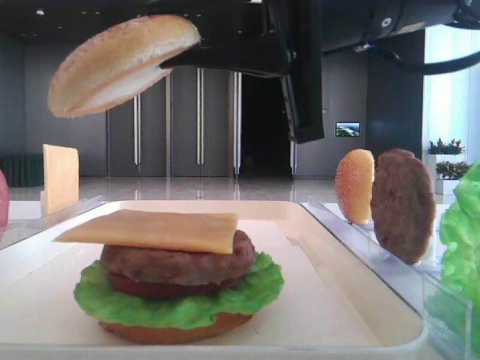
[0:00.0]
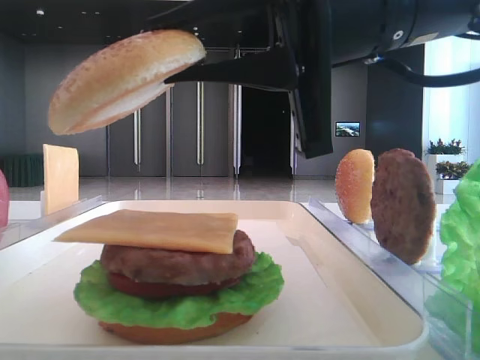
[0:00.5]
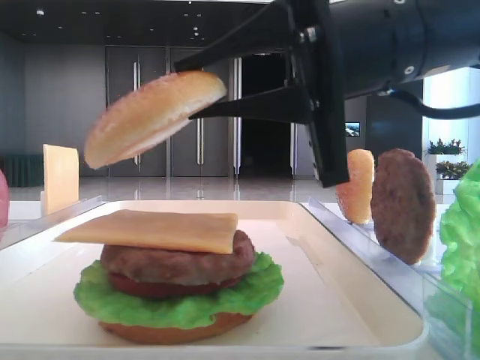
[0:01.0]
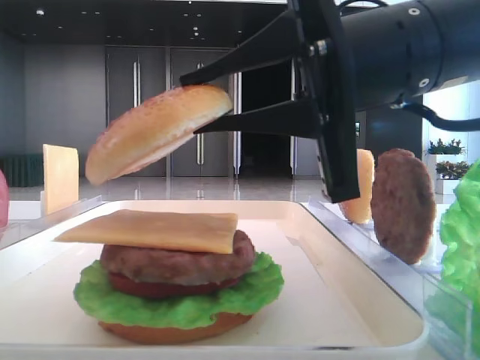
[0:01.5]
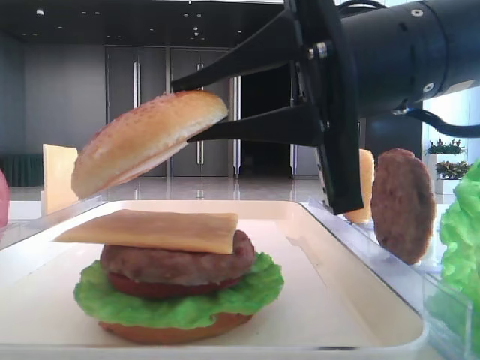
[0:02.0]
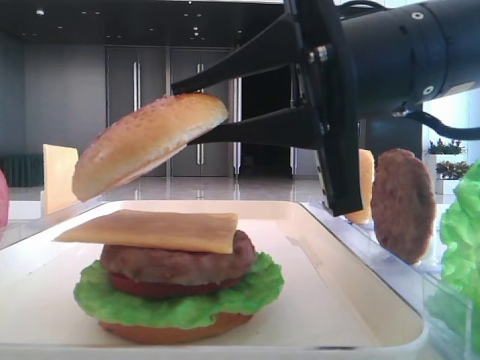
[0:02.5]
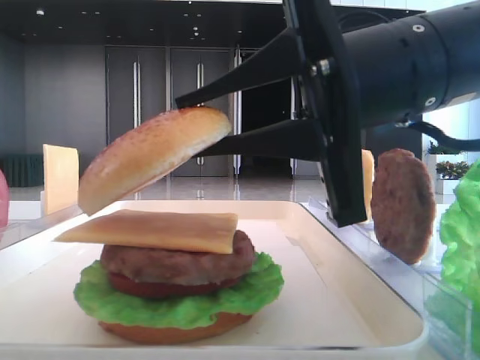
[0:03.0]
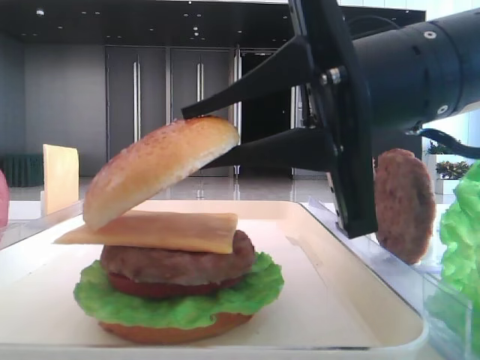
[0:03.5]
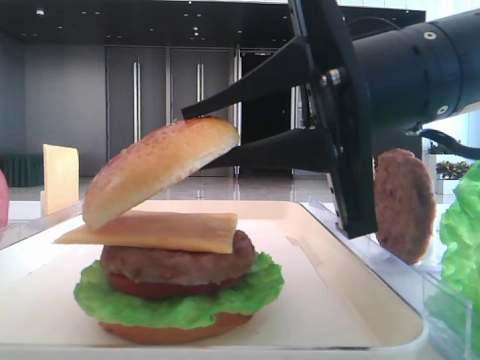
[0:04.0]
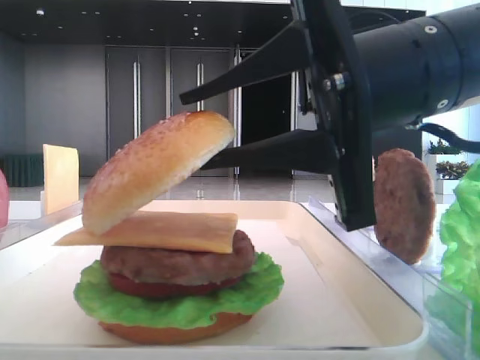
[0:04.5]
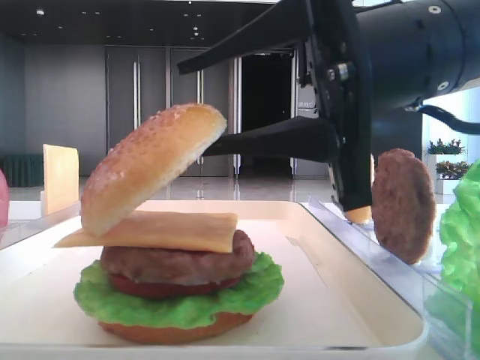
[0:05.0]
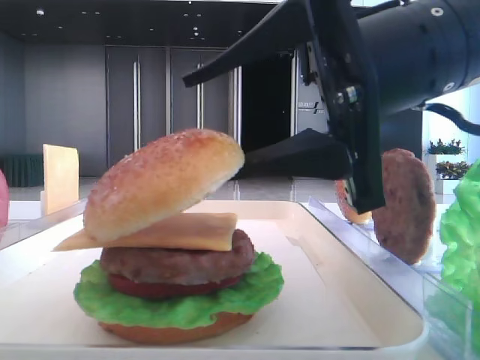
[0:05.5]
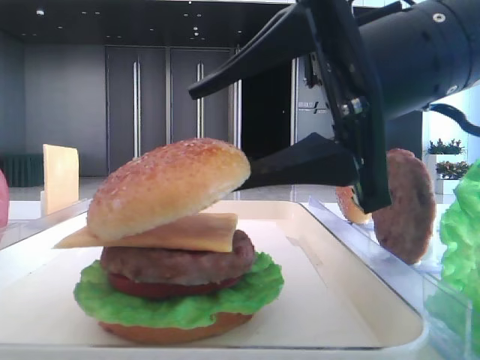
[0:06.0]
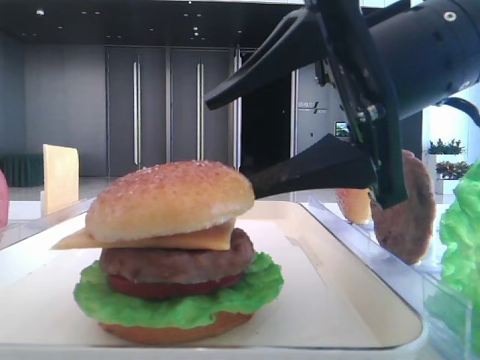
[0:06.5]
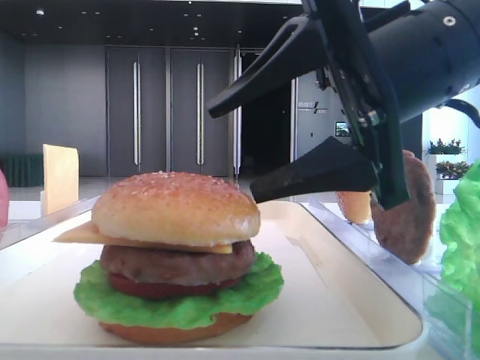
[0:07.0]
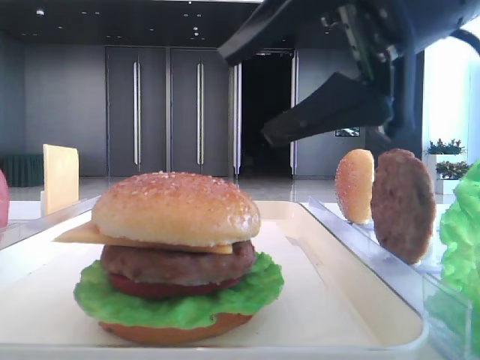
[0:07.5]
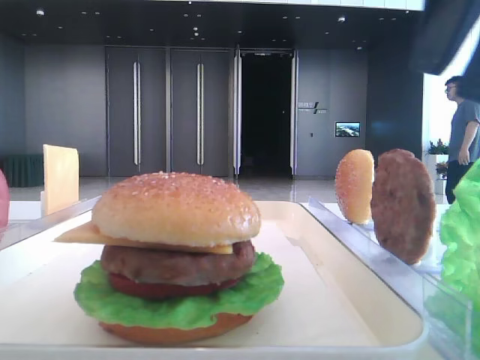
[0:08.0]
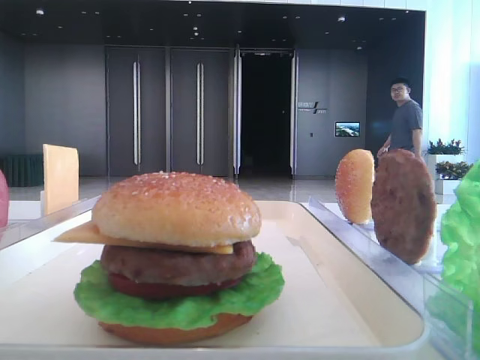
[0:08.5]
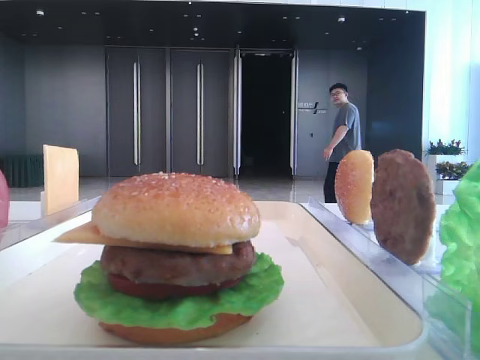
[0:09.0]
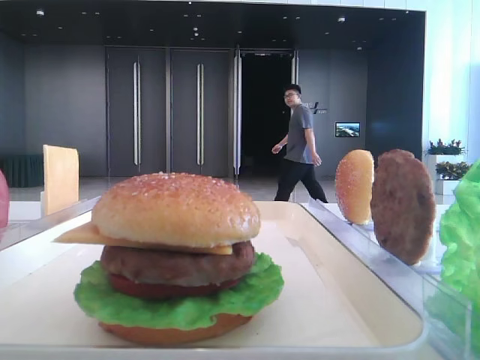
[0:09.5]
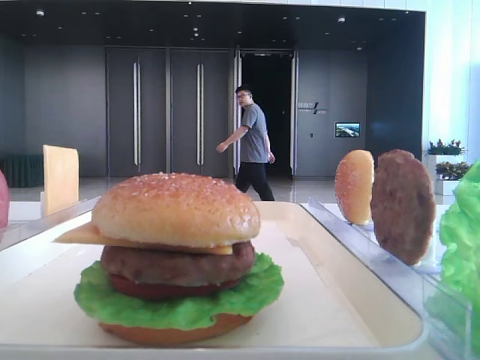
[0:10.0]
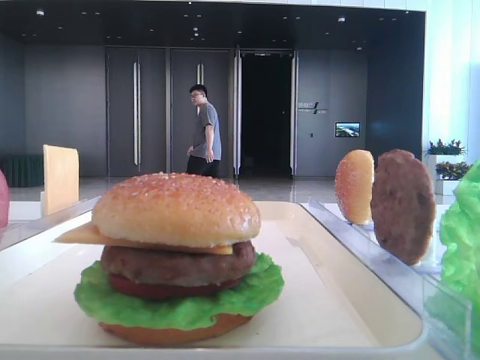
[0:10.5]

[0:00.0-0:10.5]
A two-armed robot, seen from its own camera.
Step, 0:00.0 to 0:06.5: Place the top bread slice on the cheese with the right hand.
0:00.0 to 0:02.0: The grippers move only a little.
0:02.0 to 0:04.0: Neither gripper changes place.
0:04.0 to 0:06.5: The right gripper opens its fingers.
0:06.5 to 0:08.5: The right gripper travels to the right and upward by some 20 cm, and closes up.
0:08.5 to 0:10.5: The right gripper travels backward by some 20 cm.
